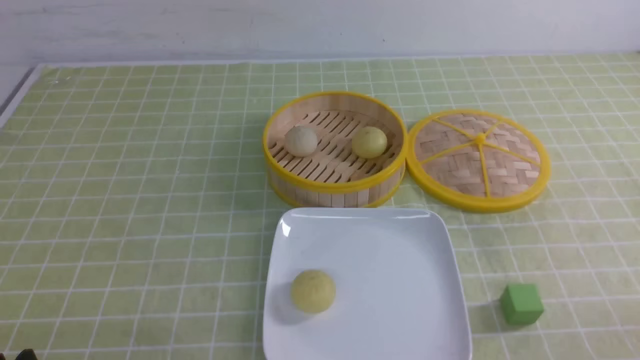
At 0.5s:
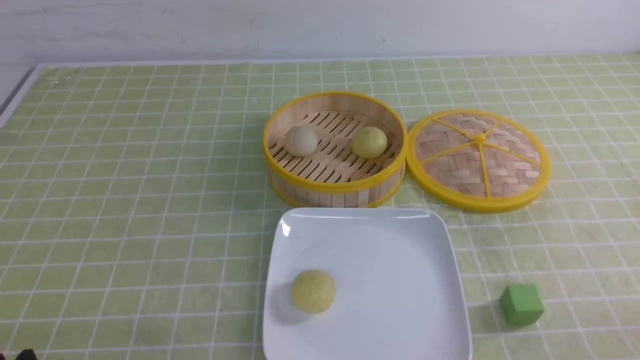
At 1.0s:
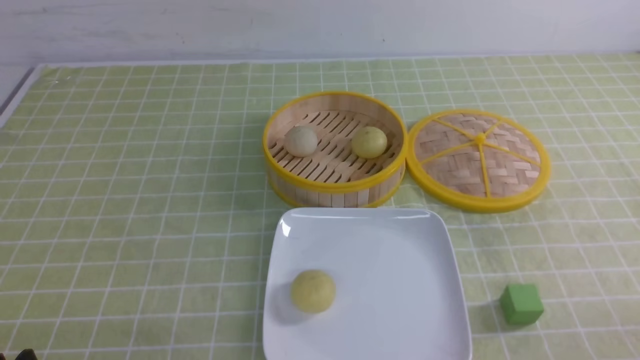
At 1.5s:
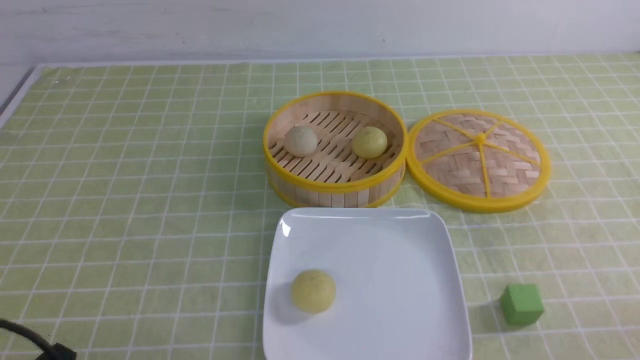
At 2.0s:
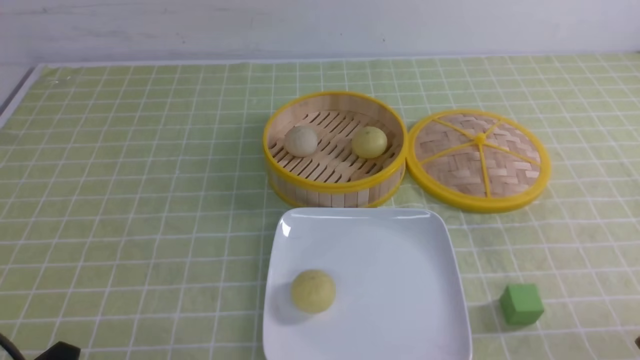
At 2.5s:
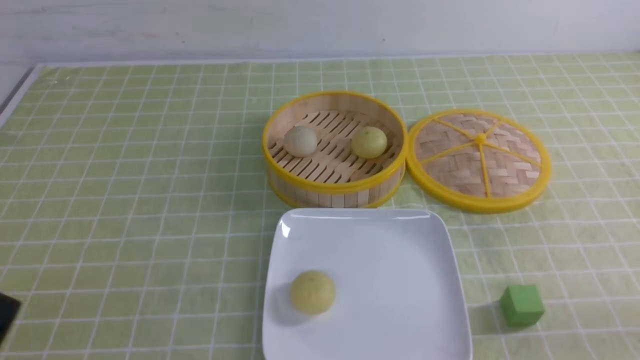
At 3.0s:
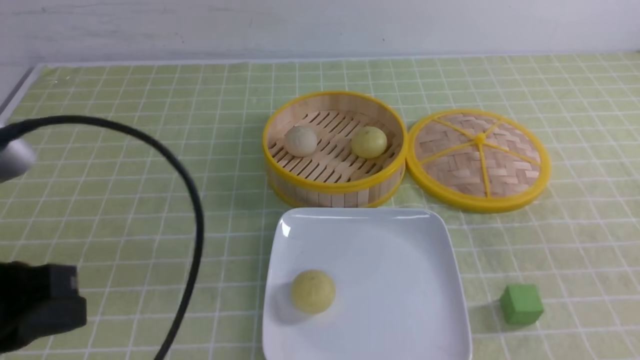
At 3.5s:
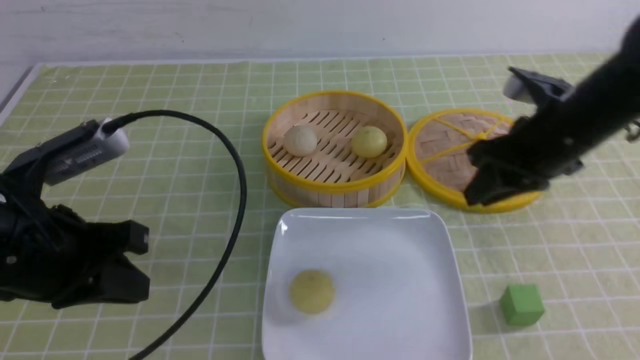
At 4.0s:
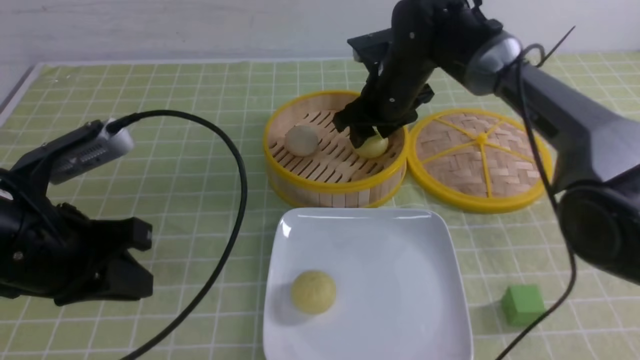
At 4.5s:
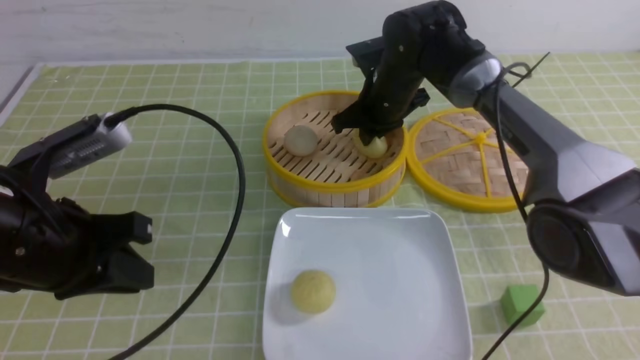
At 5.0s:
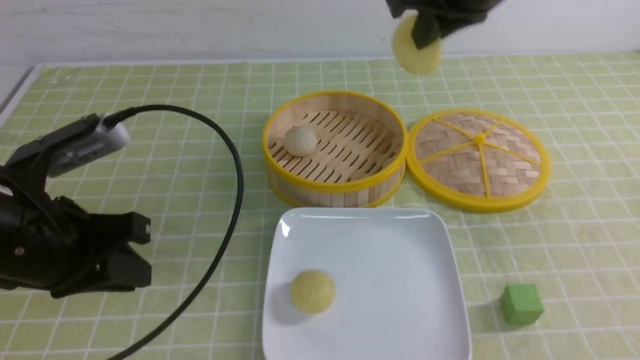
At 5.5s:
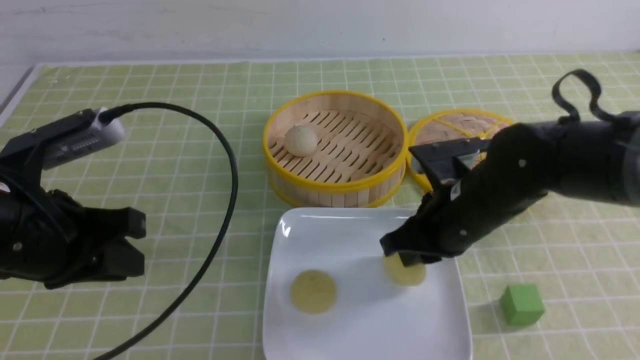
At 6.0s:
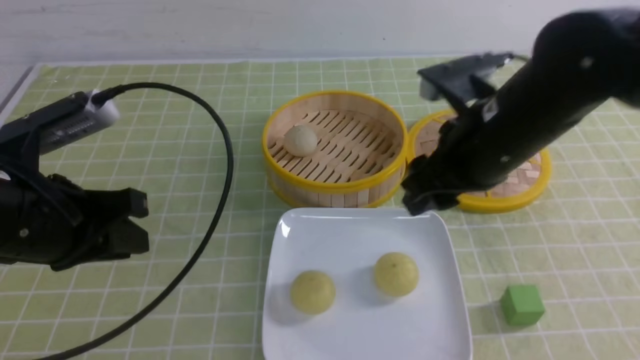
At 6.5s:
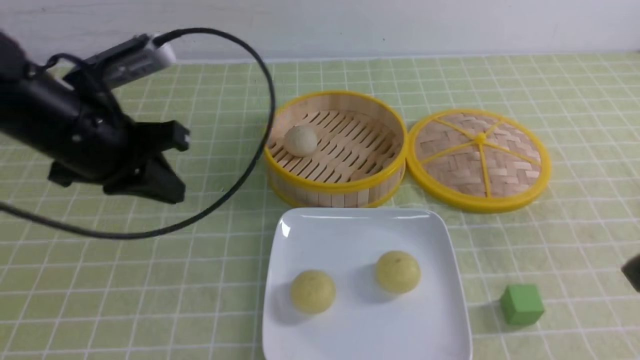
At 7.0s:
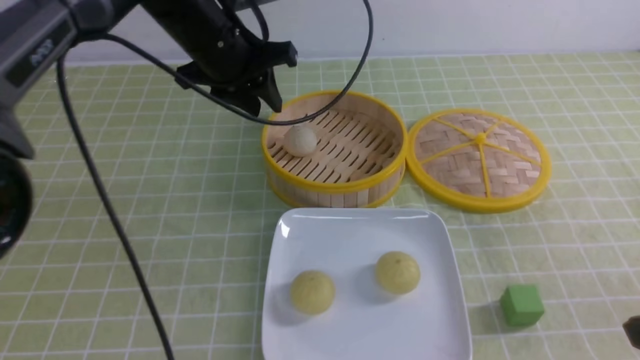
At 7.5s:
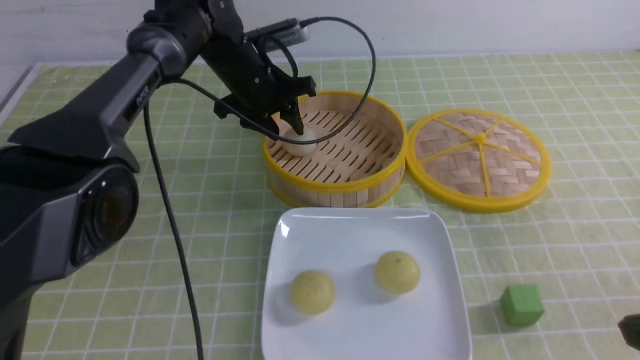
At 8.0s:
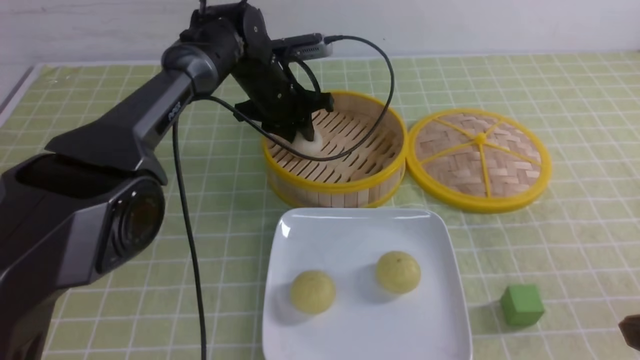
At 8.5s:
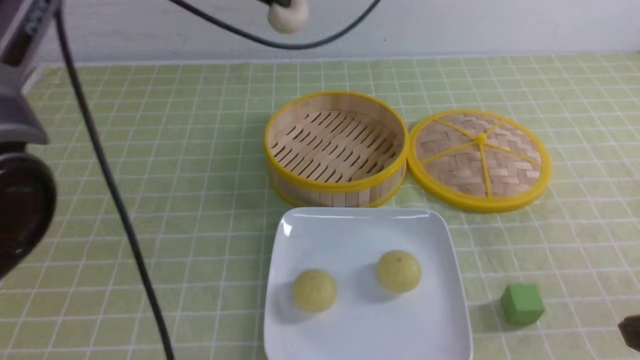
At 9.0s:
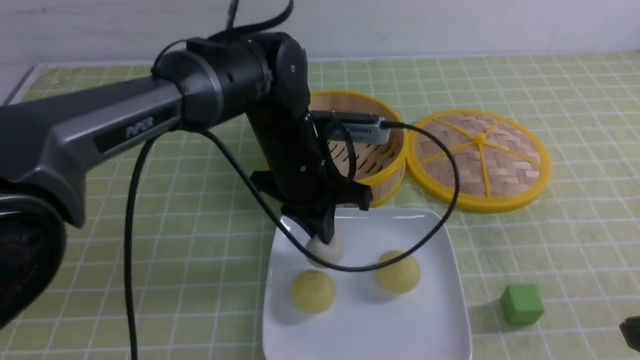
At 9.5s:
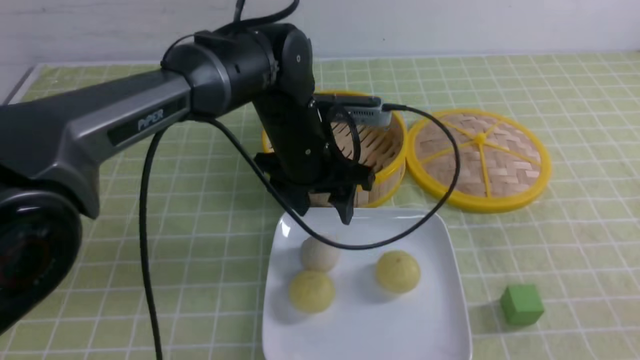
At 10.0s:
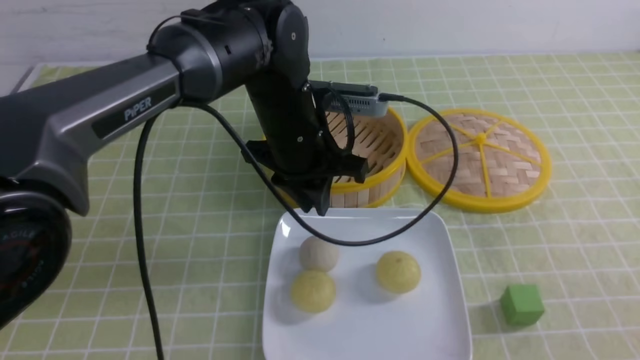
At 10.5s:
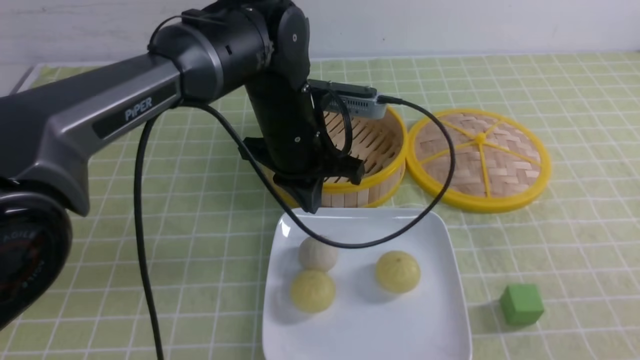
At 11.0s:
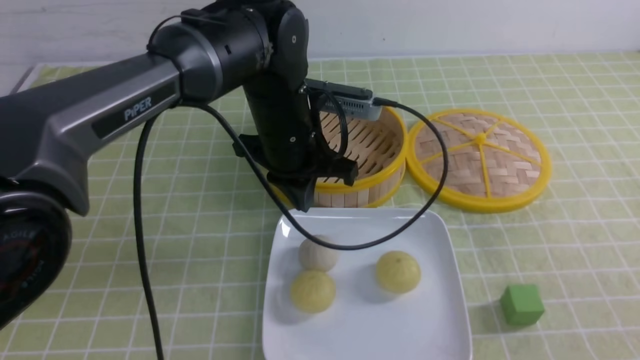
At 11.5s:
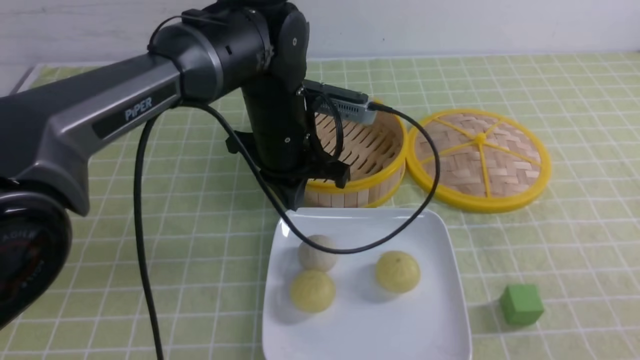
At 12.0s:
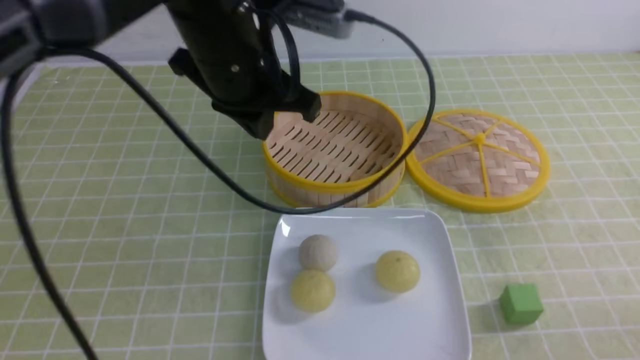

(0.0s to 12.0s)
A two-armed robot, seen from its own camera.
Step, 0.0s - 4.0s: use the right arm to grab the steamed stuffed bun that is closest to it.
Step, 5.0s - 5.5s: use the right arm to put the steamed stuffed bun into the plate.
Step, 6.0s - 8.0s: use the left arm to grab the steamed stuffed bun that is closest to it.
Step, 8.5s - 9.0s: use the left arm to put the steamed stuffed bun into the plate.
2.0s - 4.0s: The right gripper travels forward and to the left by some 50 cm, and opens up. Meanwhile the left gripper heads forward and upward, covering approximately 20 cm, and closes its fingers.
4.0s - 6.0s: The right gripper heads backward, covering approximately 20 cm, and closes and opens again.
6.0s - 8.0s: The left gripper travels forward and to the right by some 30 cm, and opens and closes again, while the right gripper moves backward and to the right, roughly 20 cm, and closes its fingers.
8.0s - 10.0s: The right gripper heads backward, covering approximately 5 cm. Meanwhile the left gripper moves backward, approximately 15 cm, goes upward and returns, approximately 15 cm each way, and closes, then reopens.
10.0s - 12.0s: The right gripper goes about 10 cm downward, while the left gripper moves upward and to the left, about 15 cm, and closes.

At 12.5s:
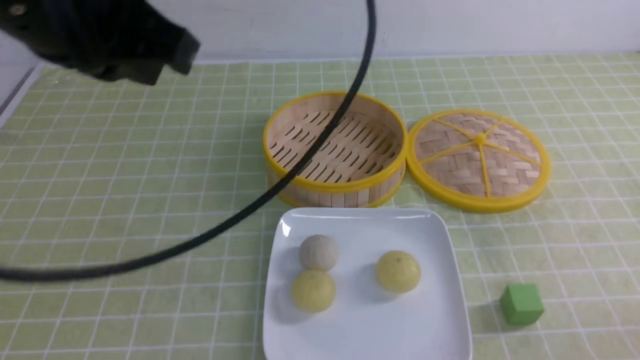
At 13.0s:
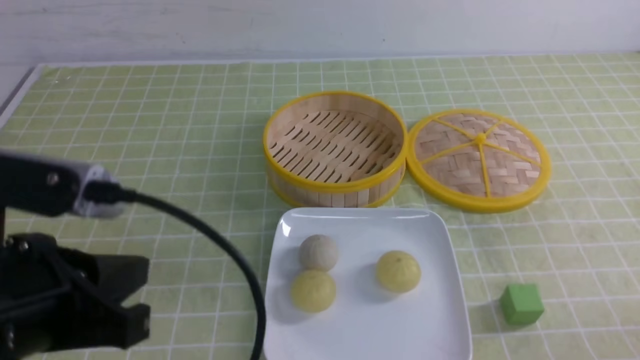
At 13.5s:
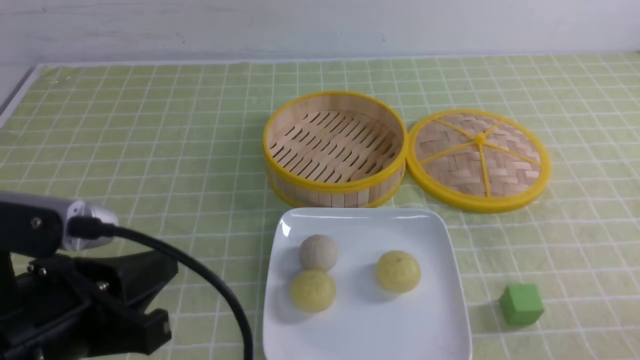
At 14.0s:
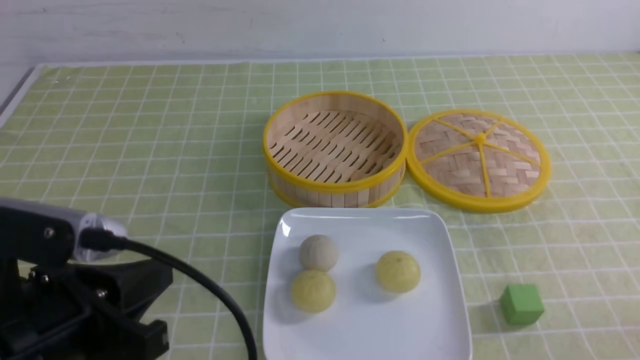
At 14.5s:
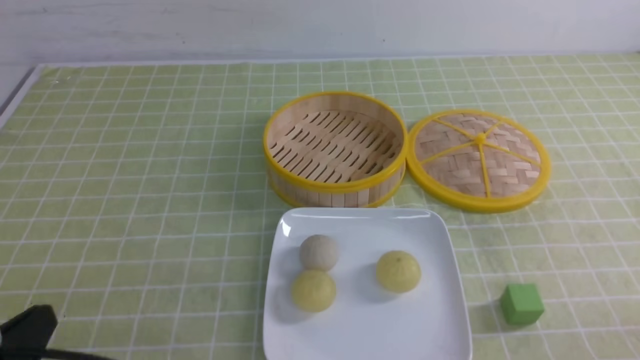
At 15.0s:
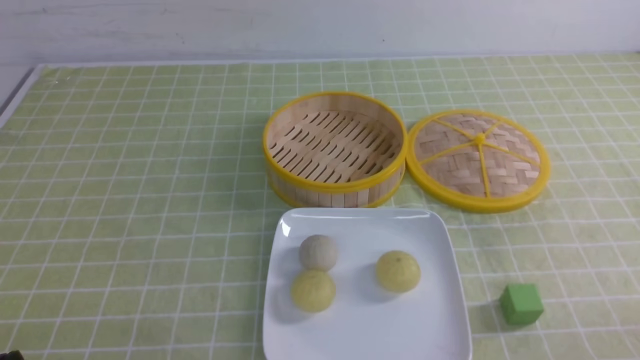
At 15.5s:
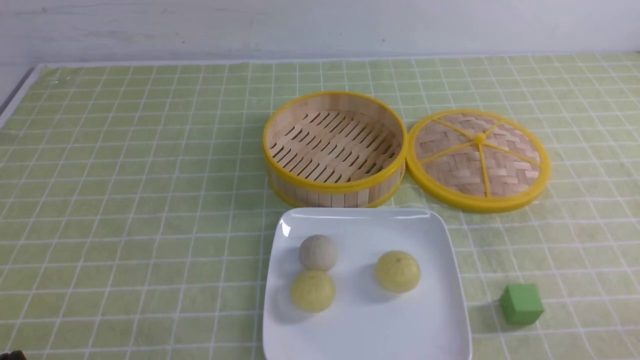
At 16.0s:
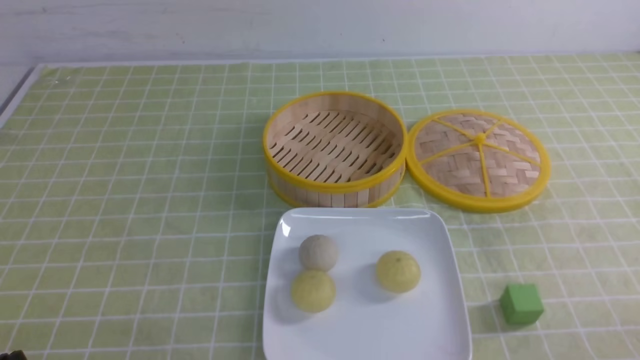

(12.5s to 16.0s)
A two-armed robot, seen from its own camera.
12.5s - 14.5s: The left gripper goes roughly 30 cm downward, backward and to the left.
14.5s - 16.0s: The left gripper shifts by roughly 5 cm.

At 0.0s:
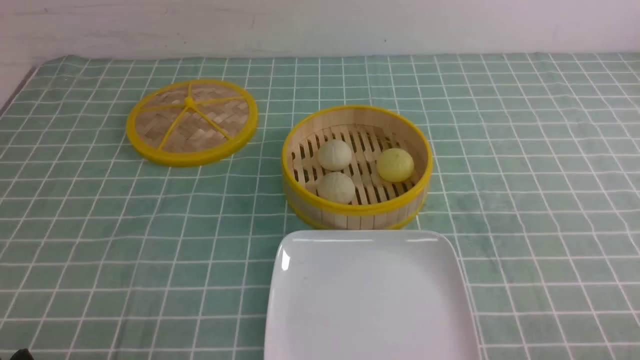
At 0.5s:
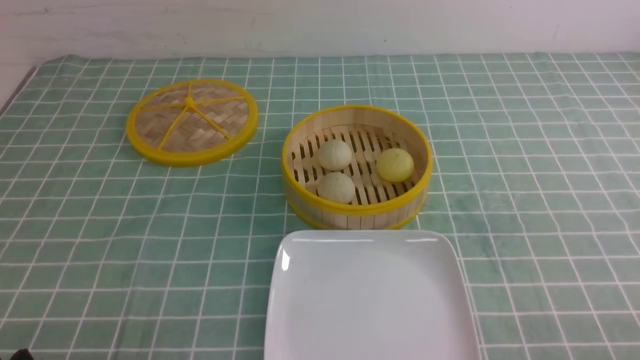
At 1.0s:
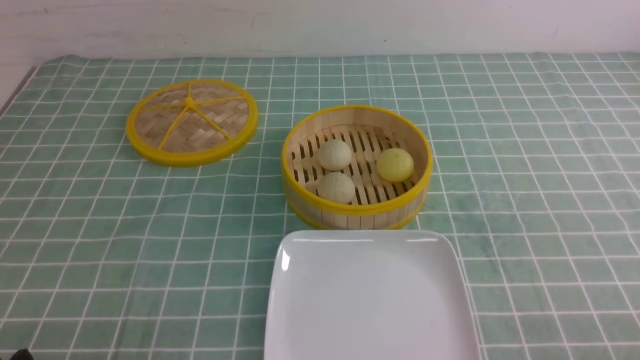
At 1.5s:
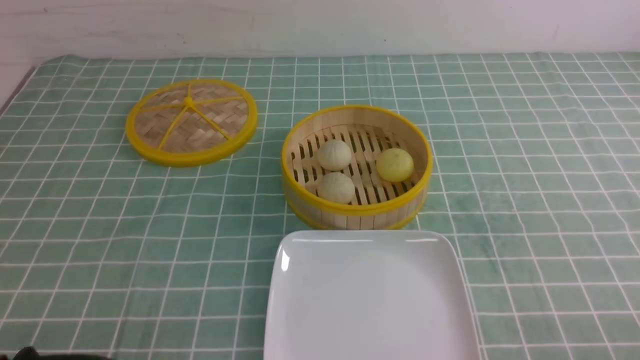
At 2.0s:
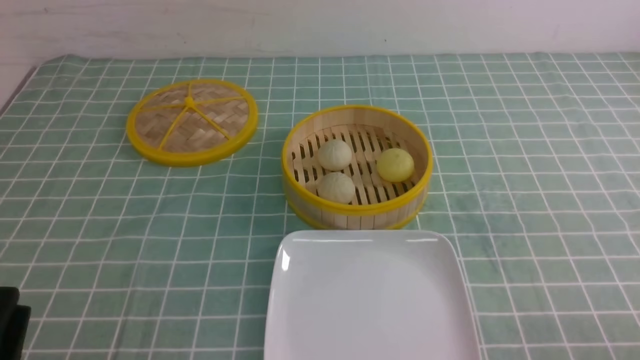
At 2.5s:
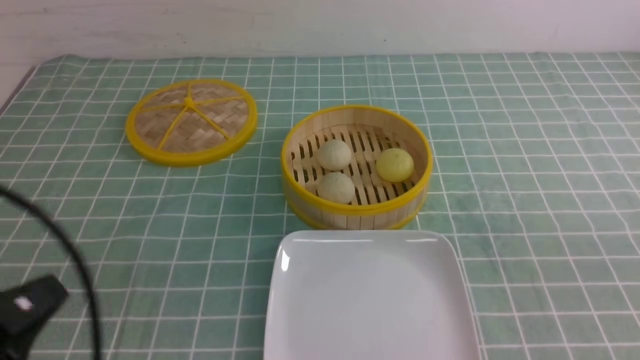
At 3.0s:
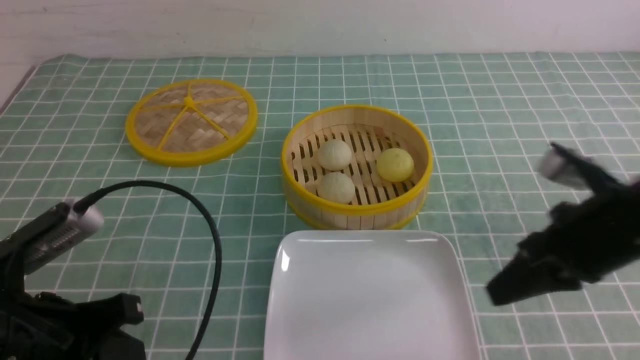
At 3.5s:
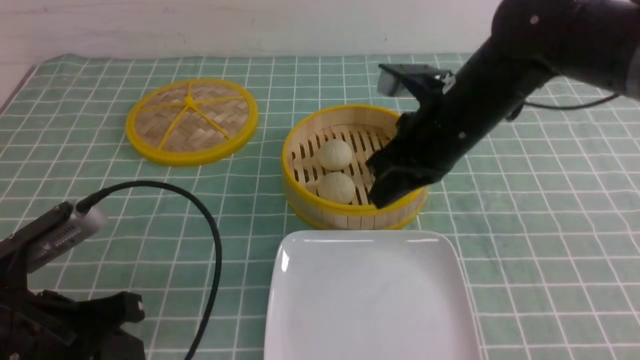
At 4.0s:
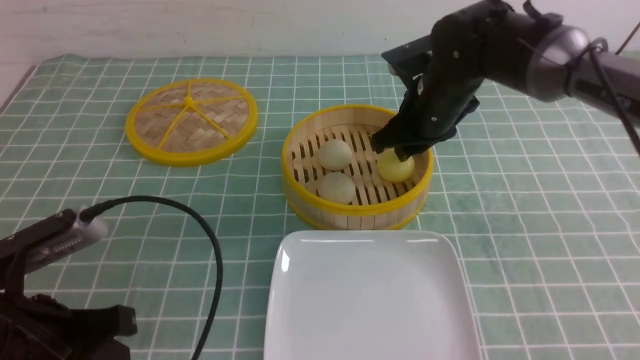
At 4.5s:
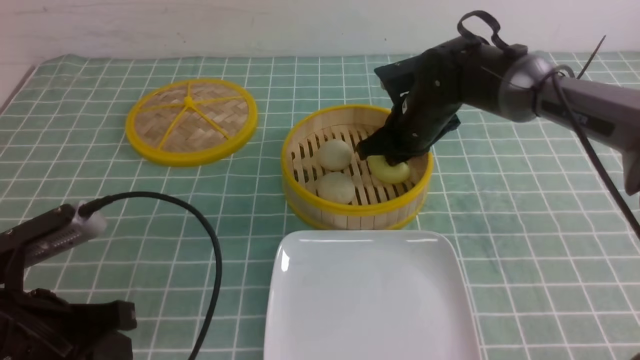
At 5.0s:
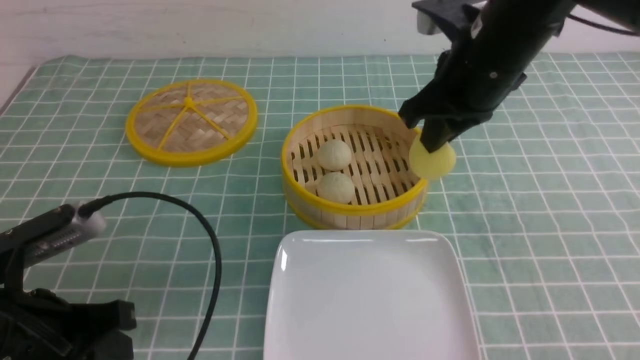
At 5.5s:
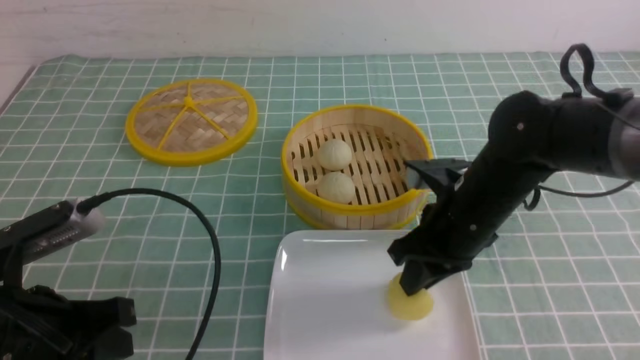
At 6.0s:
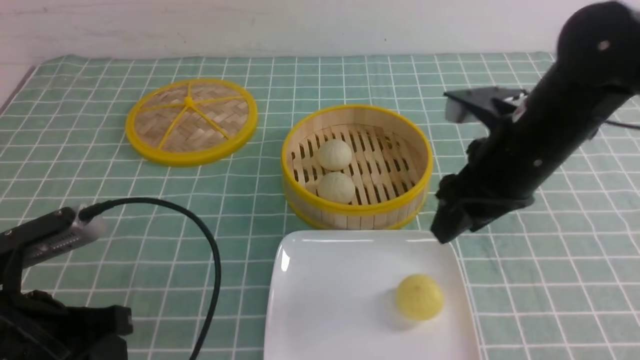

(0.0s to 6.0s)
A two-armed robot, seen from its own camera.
Step, 0.0s - 4.5s: use the right arm to grab the steamed stuffed bun that is closest to it.
Step, 5.0s - 5.5s: use the right arm to put the steamed stuffed bun into the plate.
2.0s - 4.0s: The right gripper moves forward and to the left, approximately 40 cm, and closes, then opens again; the left gripper is displaced forward by roughly 10 cm, and closes its fingers.
4.0s - 6.0s: The right gripper moves backward and to the right, some 15 cm, and closes and opens again.
